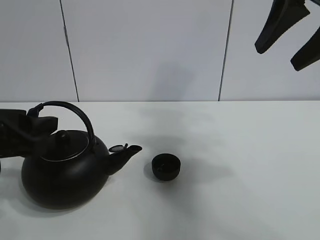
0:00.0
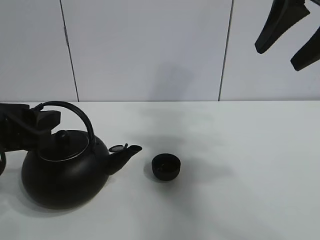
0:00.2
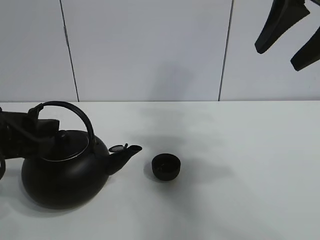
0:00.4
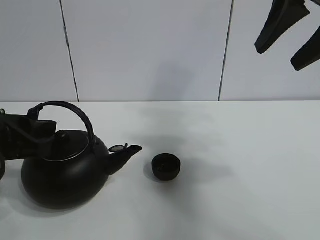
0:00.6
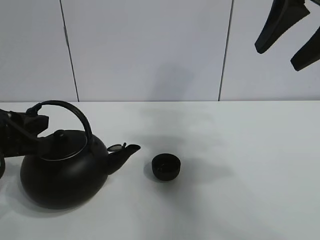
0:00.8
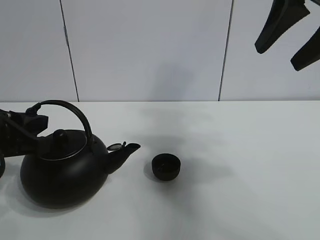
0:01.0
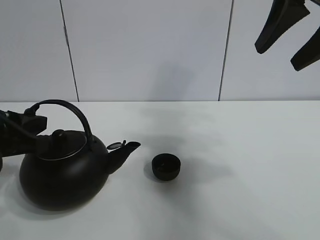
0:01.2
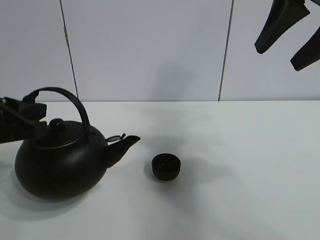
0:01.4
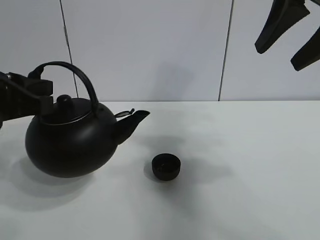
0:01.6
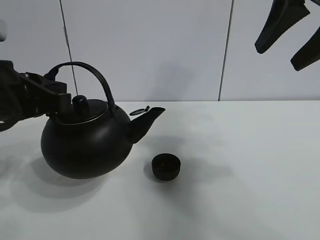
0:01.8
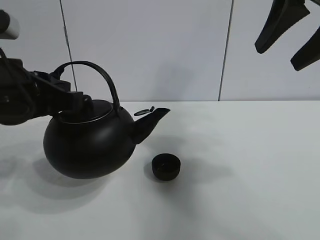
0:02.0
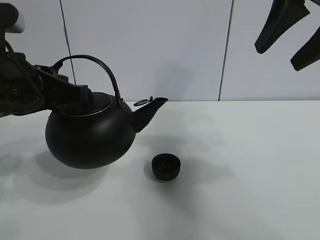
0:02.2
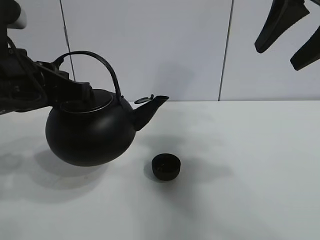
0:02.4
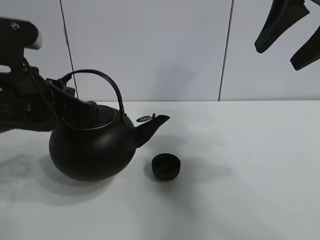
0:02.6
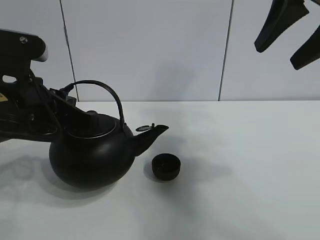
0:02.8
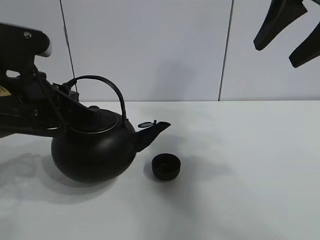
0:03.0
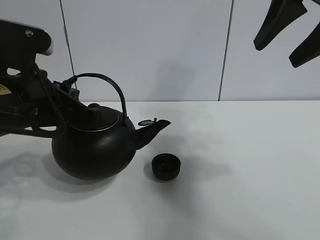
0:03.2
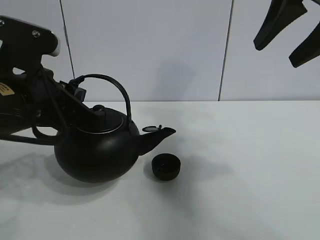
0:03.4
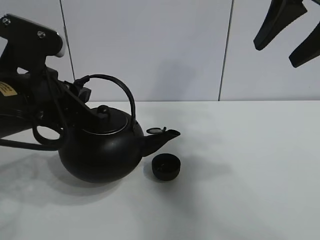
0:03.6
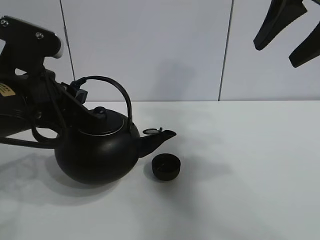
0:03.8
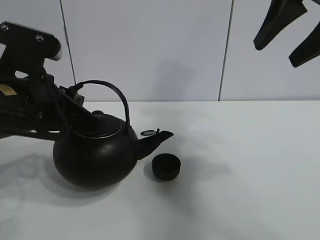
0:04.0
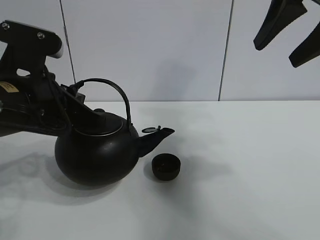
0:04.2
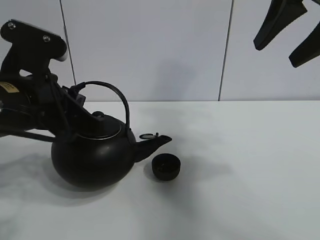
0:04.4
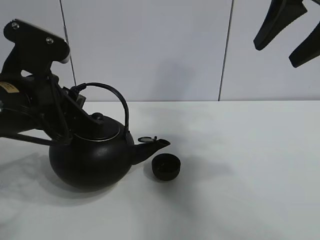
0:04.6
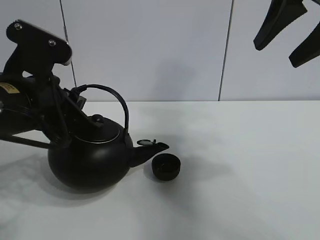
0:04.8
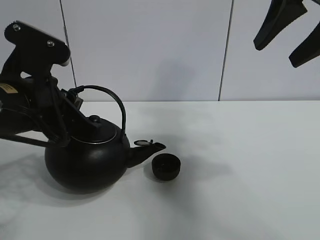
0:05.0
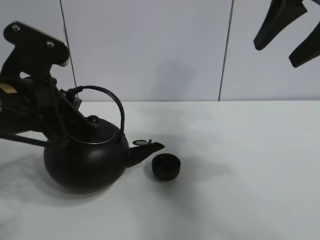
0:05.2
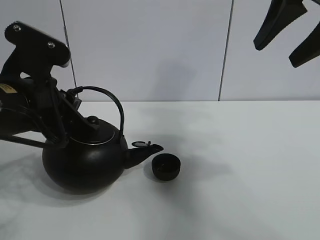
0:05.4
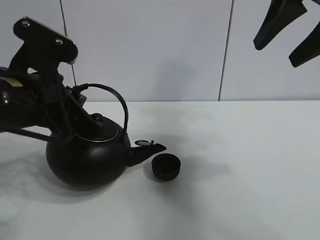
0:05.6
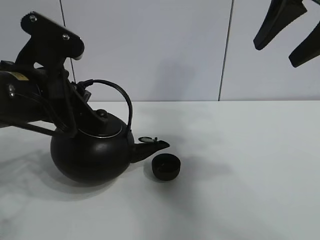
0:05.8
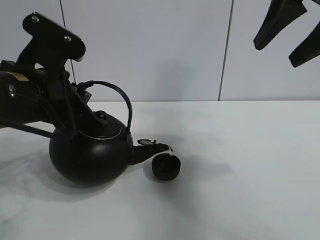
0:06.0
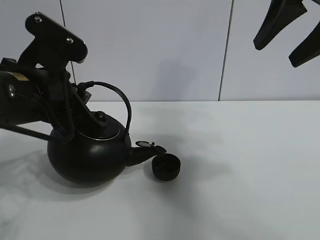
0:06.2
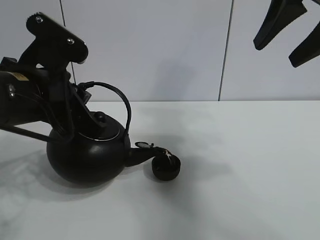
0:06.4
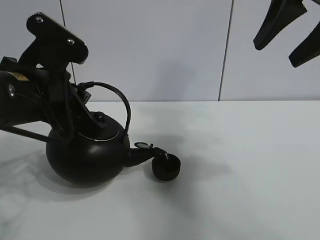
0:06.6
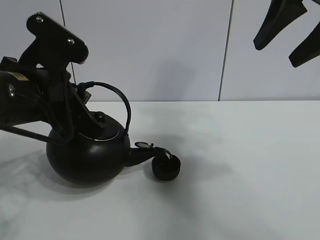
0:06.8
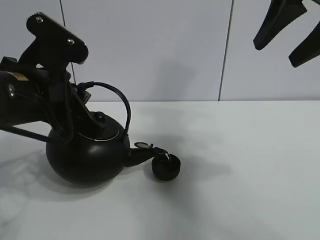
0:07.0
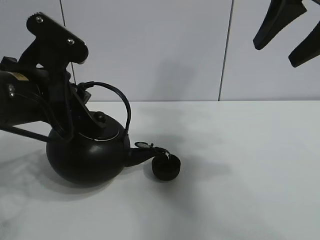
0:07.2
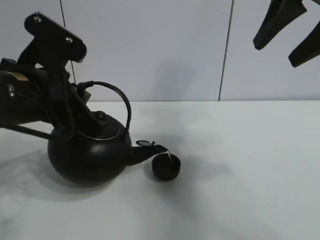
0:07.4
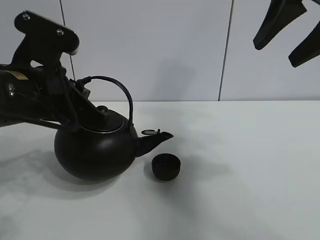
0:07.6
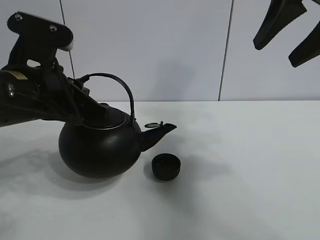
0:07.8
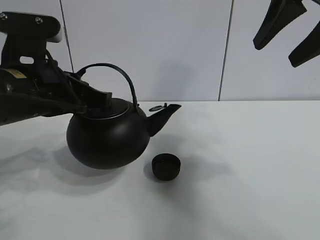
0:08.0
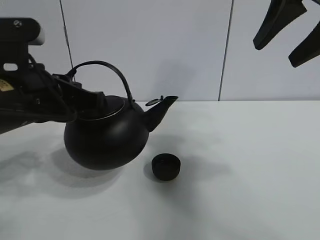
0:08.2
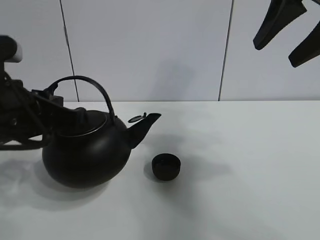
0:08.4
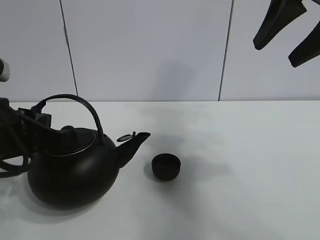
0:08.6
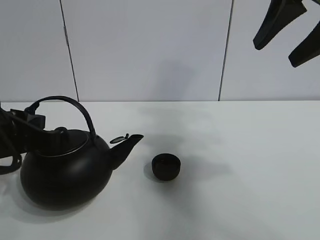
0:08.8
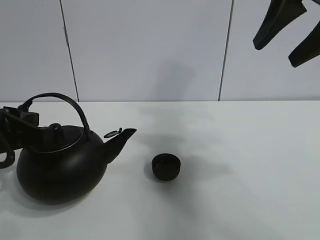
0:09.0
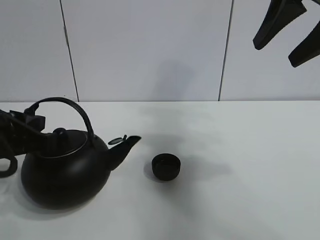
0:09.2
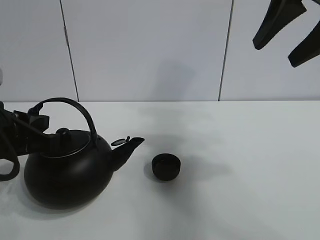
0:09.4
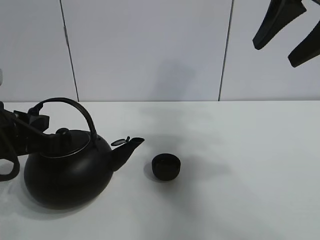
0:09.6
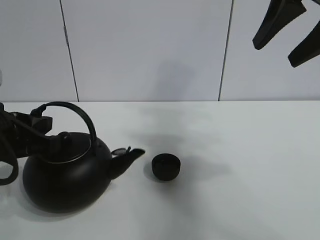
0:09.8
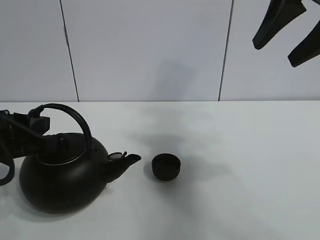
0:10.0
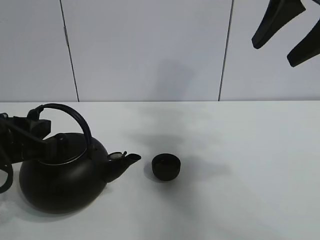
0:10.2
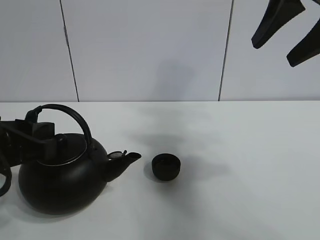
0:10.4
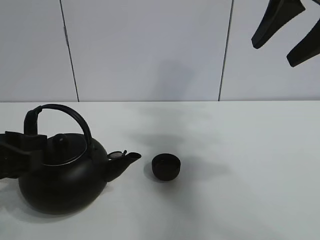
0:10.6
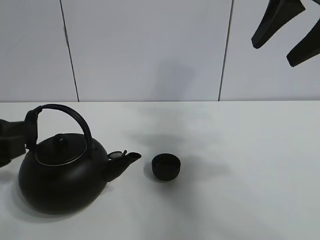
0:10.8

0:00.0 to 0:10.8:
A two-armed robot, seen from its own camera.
Task of the whole recording: pour tea into the teacup.
Step, 0:01.4 to 0:07.4: Pour tea into the teacup with the left gripper.
0:00.0 to 0:01.6: The left gripper closes its fingers.
0:01.6 to 0:03.0: The left gripper moves to the right, about 5 cm.
0:03.0 to 0:04.6: The grippers stay close to where they were, moving slightly.
0:04.6 to 0:07.8: The grippers stay close to where they were, moving slightly.
0:07.8 to 0:09.2: The left gripper is displaced to the left by approximately 5 cm.
0:09.2 to 0:10.8: The left gripper opens up.

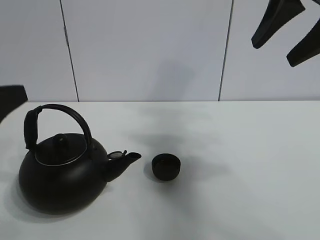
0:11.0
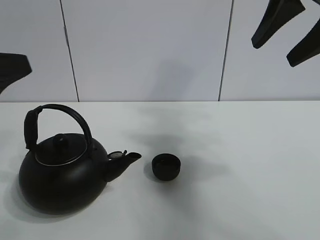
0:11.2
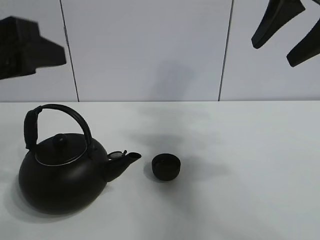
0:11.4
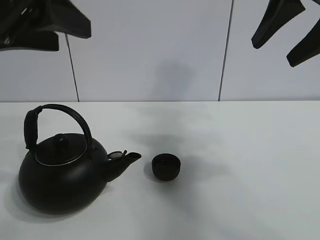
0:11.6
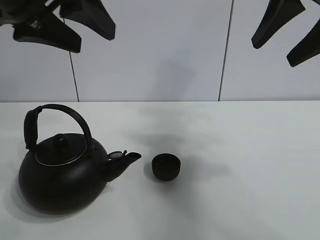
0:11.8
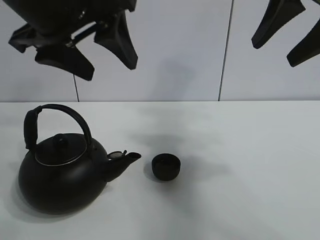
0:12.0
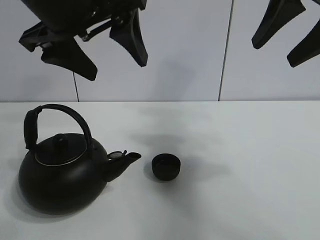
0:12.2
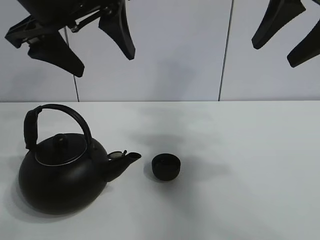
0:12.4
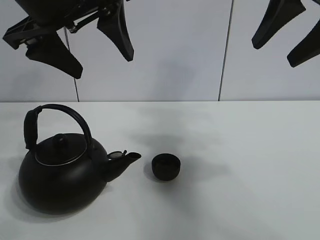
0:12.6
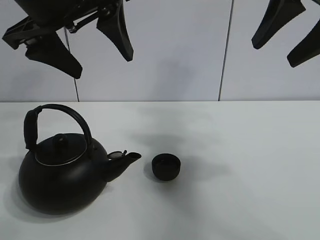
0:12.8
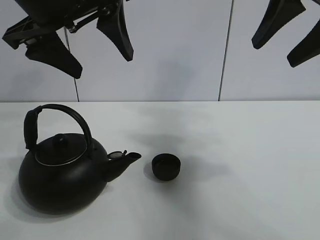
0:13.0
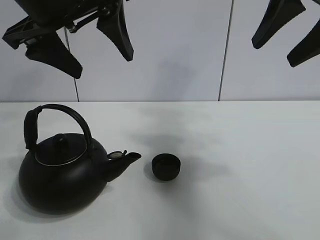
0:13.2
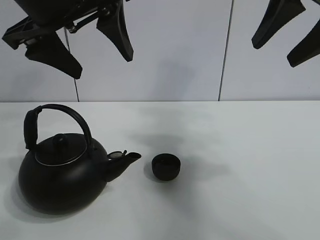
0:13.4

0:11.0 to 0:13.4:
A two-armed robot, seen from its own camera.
Task of the whole recording: pour tea into the teacup.
0:11.0 to 0:12.2: The left gripper goes some 20 cm upward, to the right and forward, and opens its fingers.
0:12.2 to 0:13.4: The grippers move only a little.

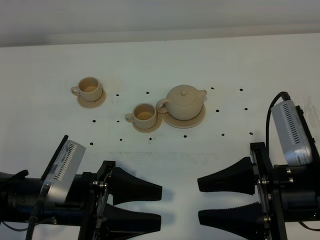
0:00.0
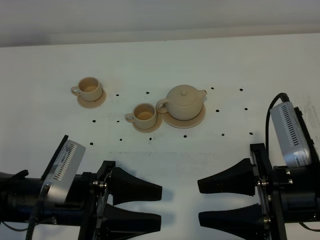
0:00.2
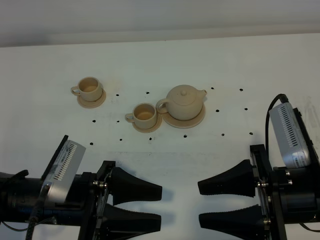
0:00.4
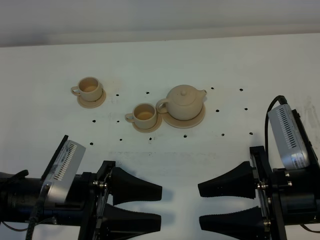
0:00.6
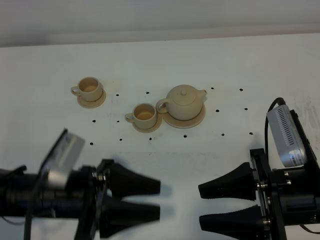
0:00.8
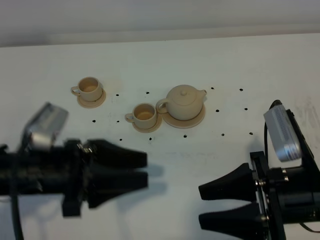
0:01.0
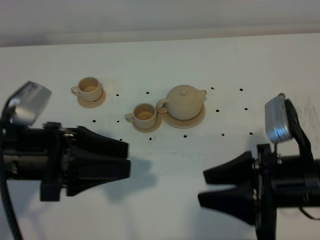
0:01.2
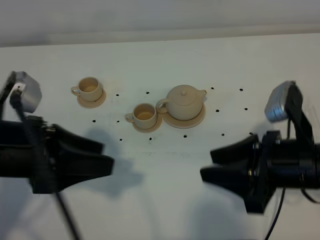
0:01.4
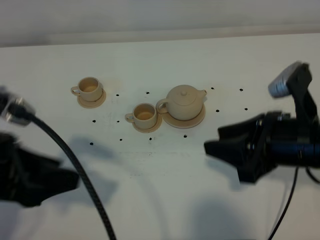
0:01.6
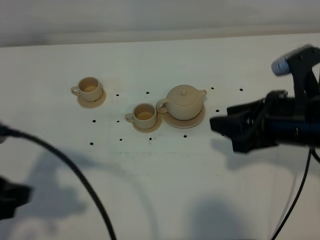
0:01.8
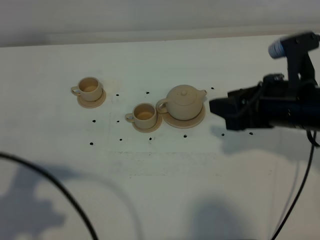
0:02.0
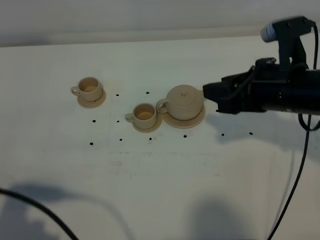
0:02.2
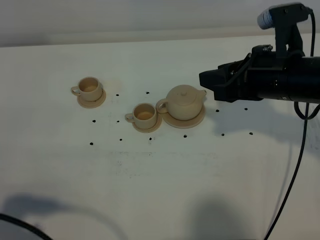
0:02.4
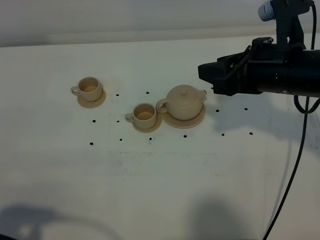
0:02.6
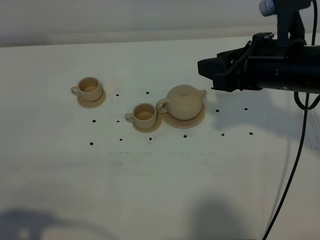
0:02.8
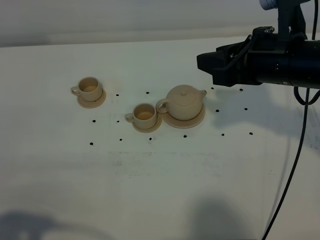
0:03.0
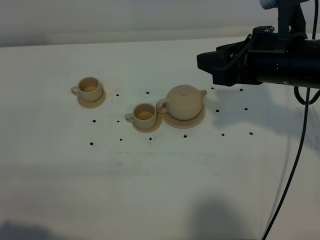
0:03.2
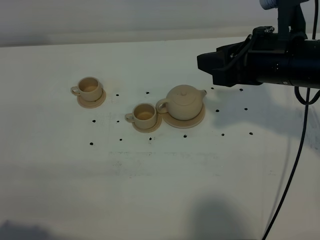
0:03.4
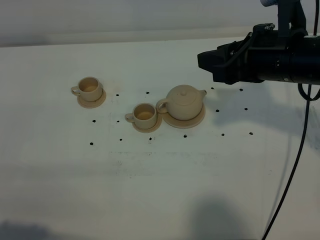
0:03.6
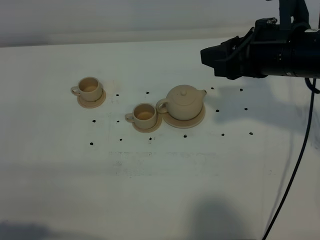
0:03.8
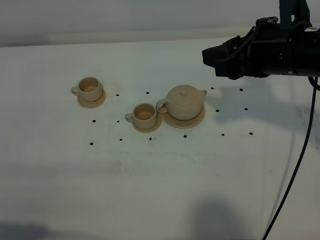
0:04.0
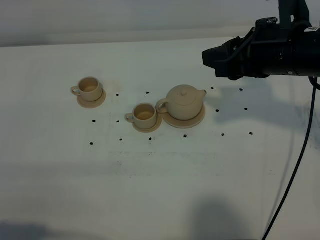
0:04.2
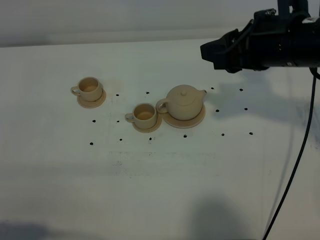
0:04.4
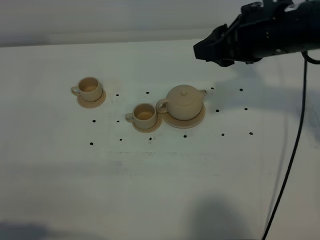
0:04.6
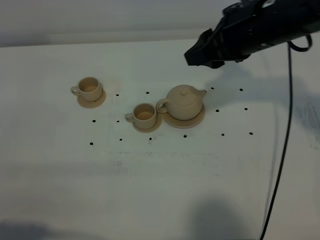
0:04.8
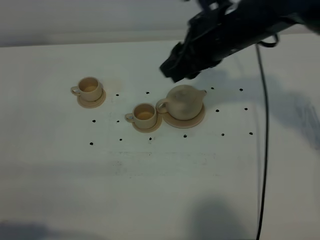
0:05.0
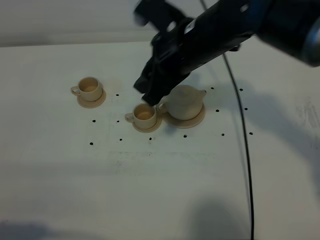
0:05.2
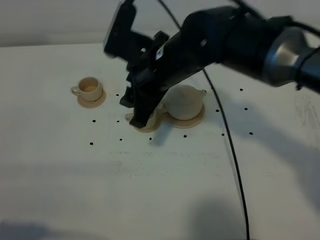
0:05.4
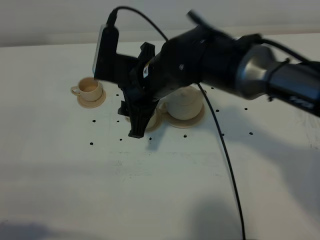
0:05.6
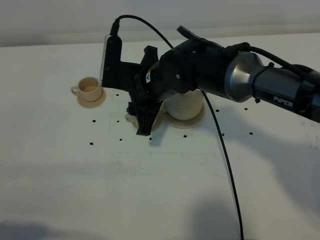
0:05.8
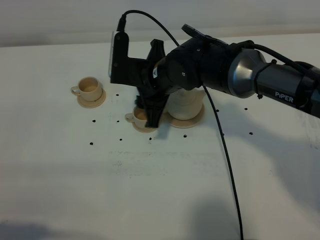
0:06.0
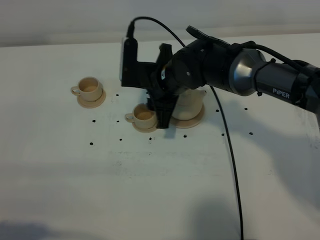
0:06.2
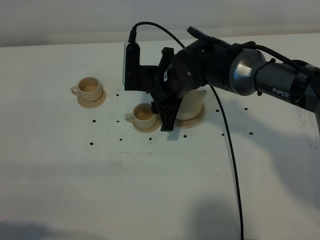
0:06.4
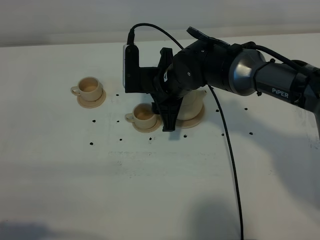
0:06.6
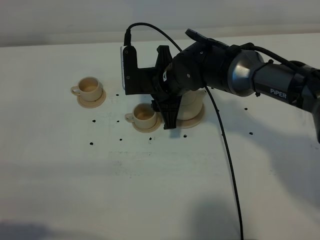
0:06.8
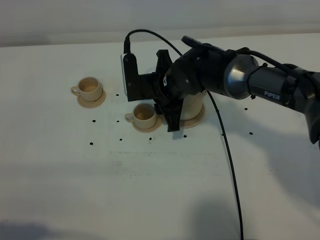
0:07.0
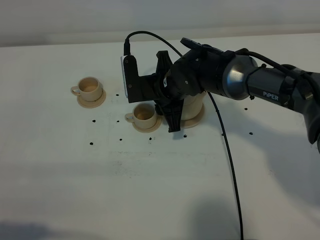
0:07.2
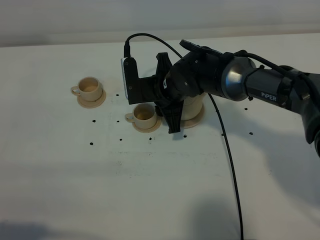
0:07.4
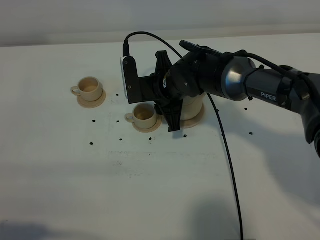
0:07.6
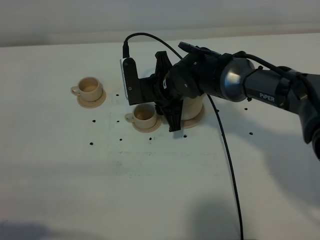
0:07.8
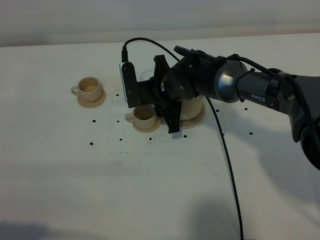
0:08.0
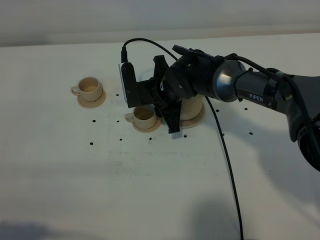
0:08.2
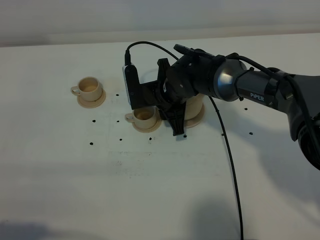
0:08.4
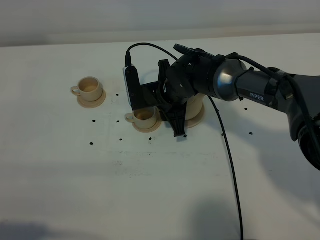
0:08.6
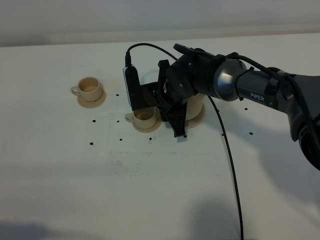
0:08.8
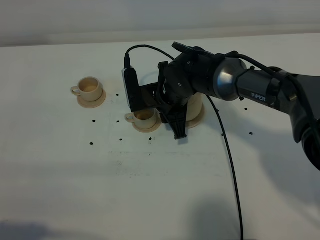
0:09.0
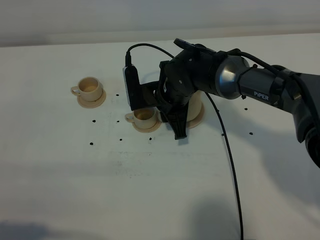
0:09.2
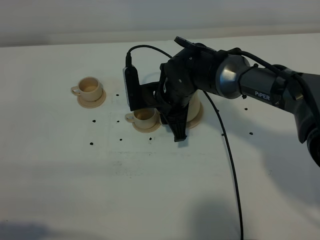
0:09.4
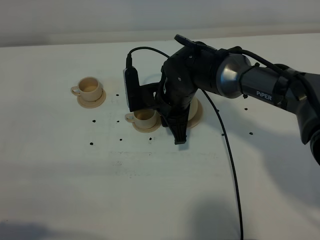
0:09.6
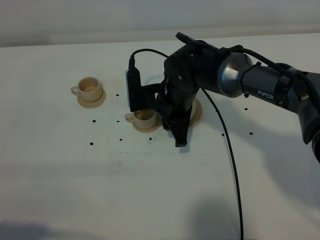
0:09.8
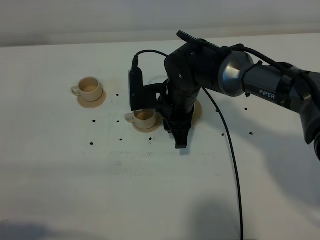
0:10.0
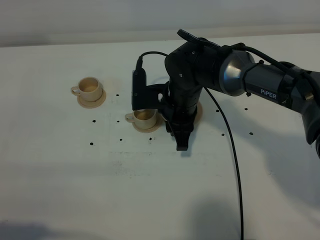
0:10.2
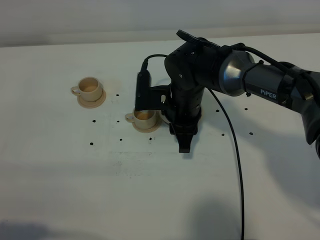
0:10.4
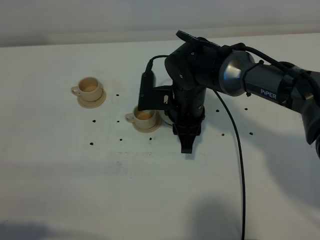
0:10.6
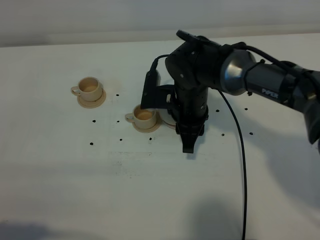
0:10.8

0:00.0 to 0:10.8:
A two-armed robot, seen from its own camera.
Task of the whole recording: grasp the brown teapot and pour the tea into the two brown teacups one by one, put the brown teapot back in its original place.
0:00.0 to 0:01.6: The left gripper travels upward and to the left by some 15 cm; the right gripper heads forward, covering approximately 5 cm.
0:01.6 to 0:03.0: The left gripper is displaced backward and to the left by some 15 cm, while the right gripper travels forward by approximately 10 cm.
0:03.0 to 0:04.6: The grippers move only a little.
0:04.6 to 0:06.2: The right gripper heads downward and to the left, covering some 20 cm.
0:06.2 to 0:09.2: The grippers make only small movements.
